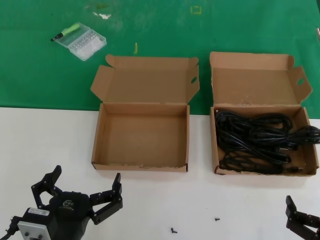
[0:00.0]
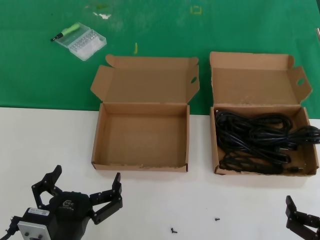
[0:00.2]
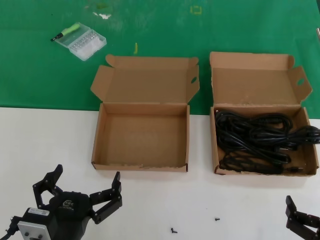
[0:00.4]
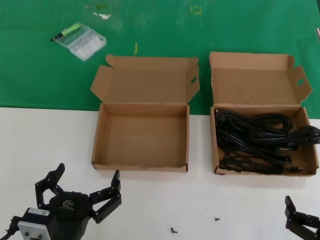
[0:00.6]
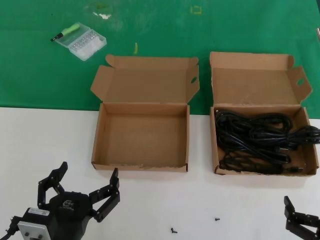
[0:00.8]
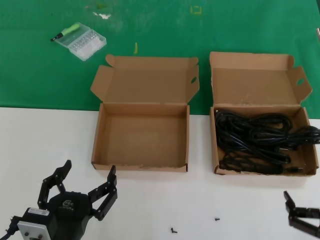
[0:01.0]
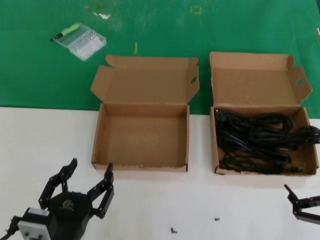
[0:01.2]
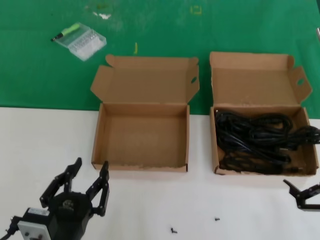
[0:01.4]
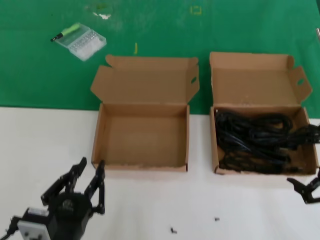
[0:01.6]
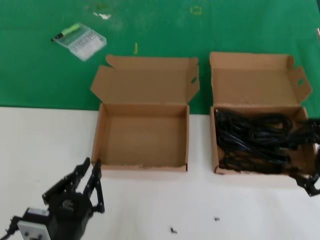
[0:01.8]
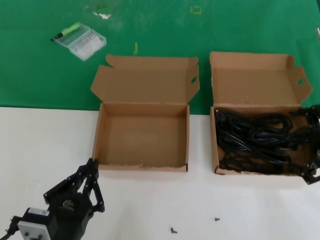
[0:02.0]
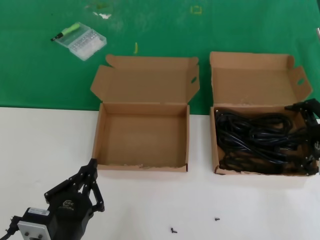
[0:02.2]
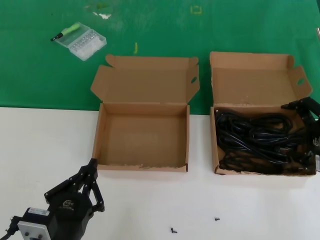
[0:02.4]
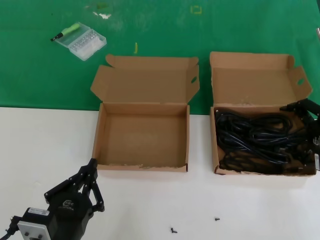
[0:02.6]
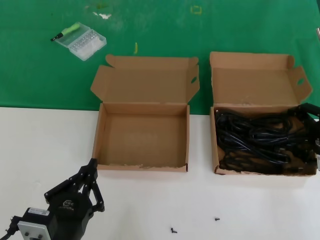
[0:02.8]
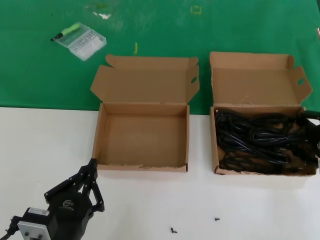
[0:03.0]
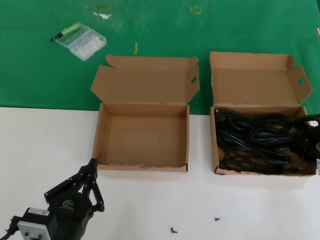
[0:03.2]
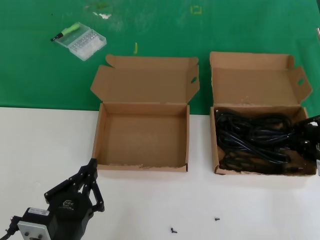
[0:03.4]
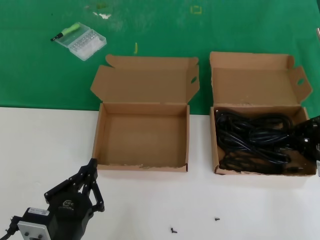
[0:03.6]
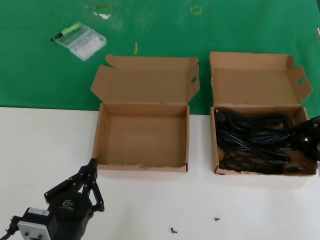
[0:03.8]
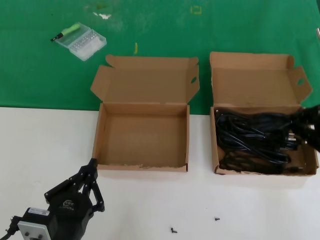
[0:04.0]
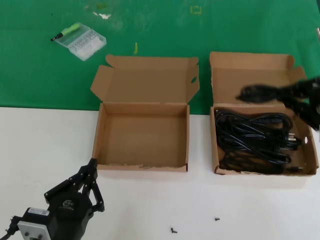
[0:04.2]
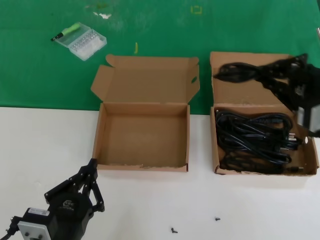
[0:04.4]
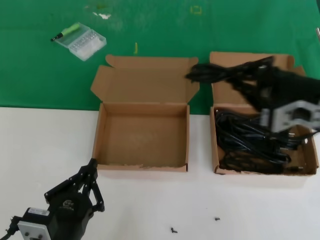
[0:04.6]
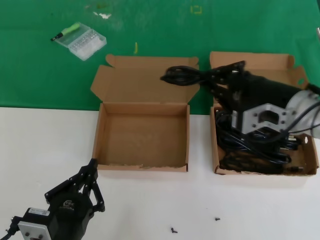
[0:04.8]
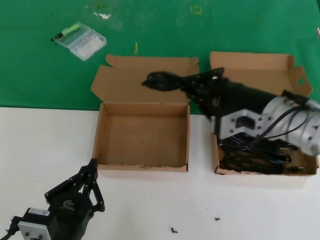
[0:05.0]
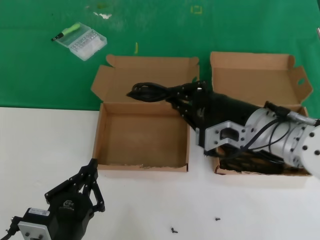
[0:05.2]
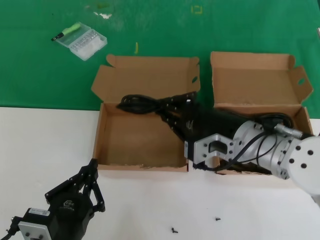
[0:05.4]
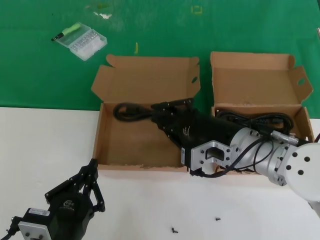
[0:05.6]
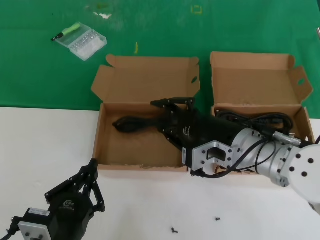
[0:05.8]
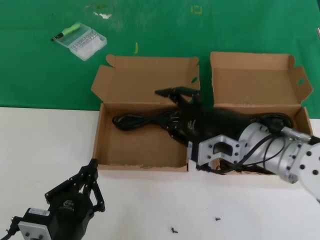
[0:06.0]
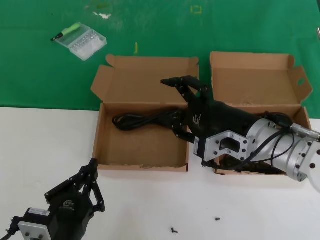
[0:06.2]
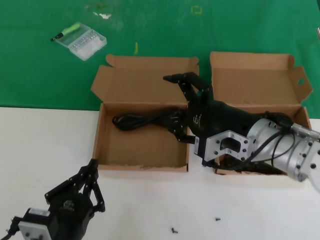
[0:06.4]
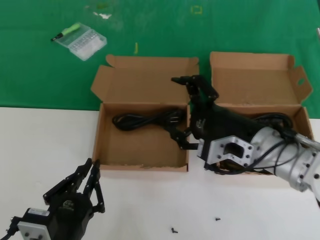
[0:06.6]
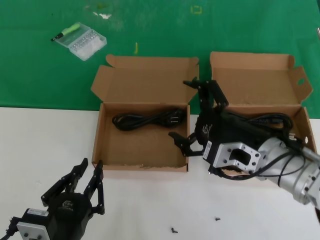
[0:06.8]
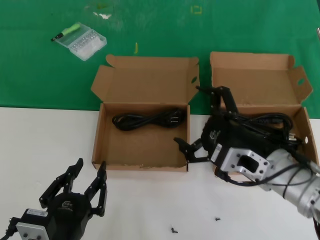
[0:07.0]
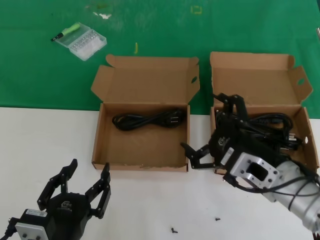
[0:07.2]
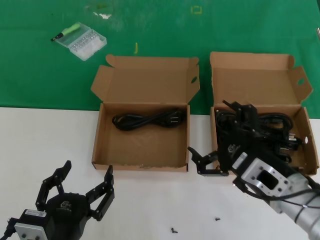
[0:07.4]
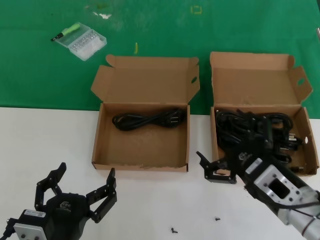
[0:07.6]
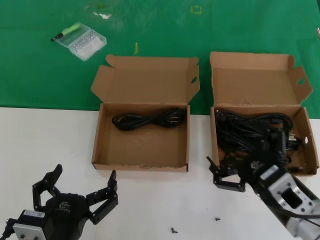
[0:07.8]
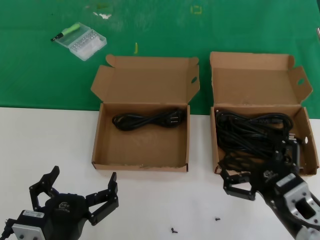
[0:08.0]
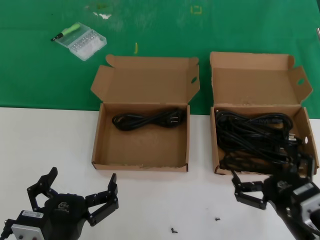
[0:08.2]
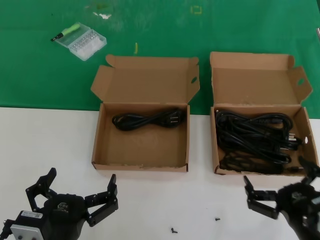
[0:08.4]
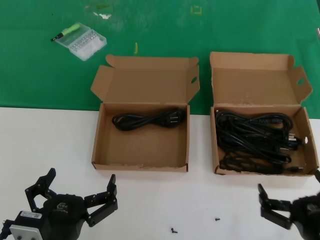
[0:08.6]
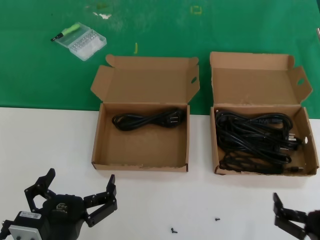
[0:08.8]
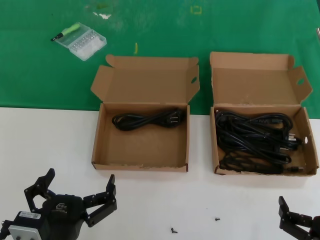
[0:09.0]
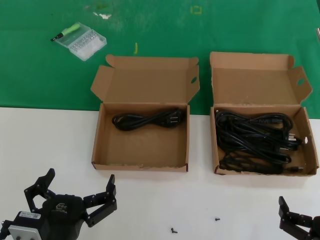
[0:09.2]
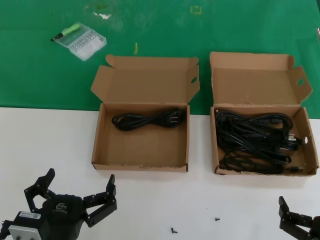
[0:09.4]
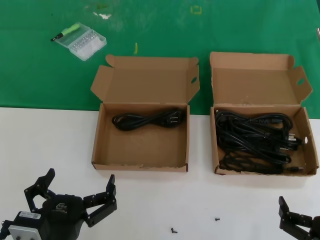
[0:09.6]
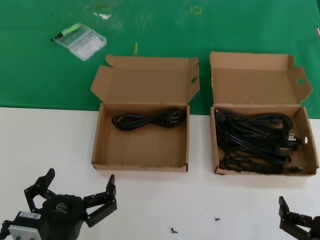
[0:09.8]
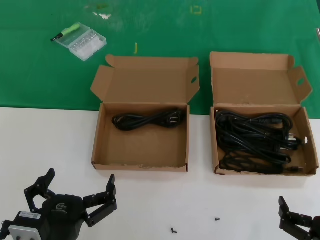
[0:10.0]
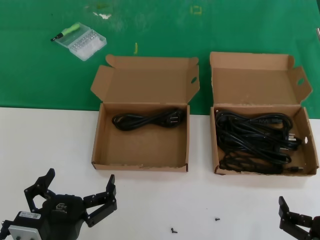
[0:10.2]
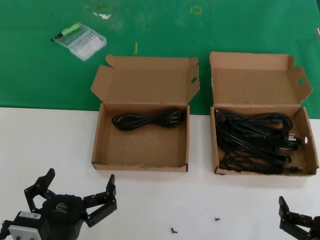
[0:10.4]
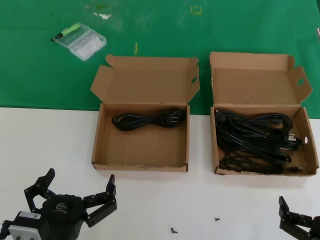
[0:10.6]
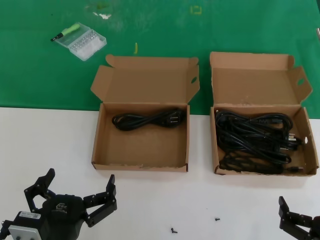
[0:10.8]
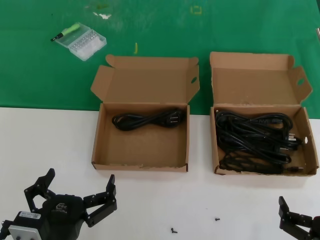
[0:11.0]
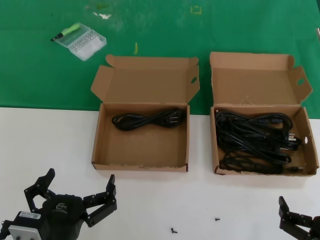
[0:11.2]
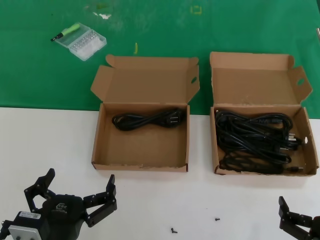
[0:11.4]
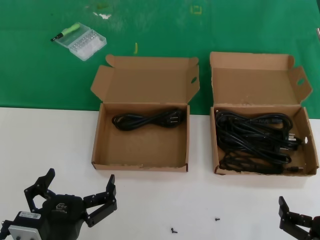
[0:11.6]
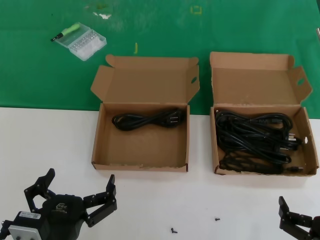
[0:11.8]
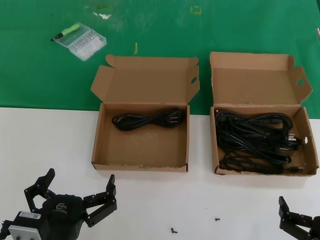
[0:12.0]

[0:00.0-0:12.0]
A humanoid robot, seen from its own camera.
Task of the whole recording: take the parts from the box containing them and put them into an empty box.
Step, 0:00.0 to 0:03.4: Grasp the data cable.
Step, 0:03.6 to 0:05.8: Place the data cable in the another box.
0:00.0 to 0:01.6: The right hand goes some 15 cm upward, forward and to the right.
0:01.6 to 0:03.0: The right hand moves forward and upward, roughly 10 cm.
0:03.0 to 0:04.4: The right hand heads upward and to the left, covering approximately 10 cm.
0:04.4 to 0:06.0: The right hand moves to the left and downward, some 20 cm.
0:06.0 to 0:07.6: The right hand shifts about 15 cm downward, backward and to the right.
0:07.6 to 0:09.0: The right hand is displaced backward, downward and to the right by some 15 cm.
0:09.0 to 0:12.0: Both hands stay put.

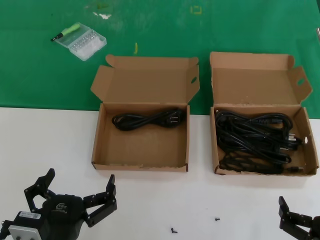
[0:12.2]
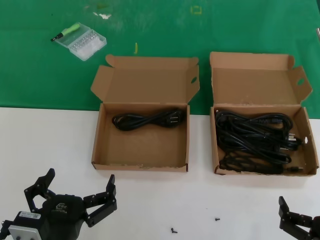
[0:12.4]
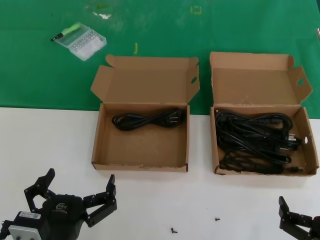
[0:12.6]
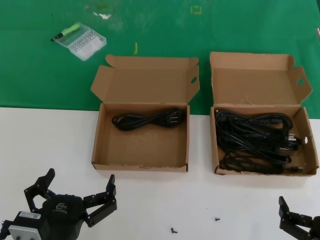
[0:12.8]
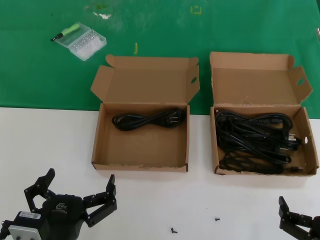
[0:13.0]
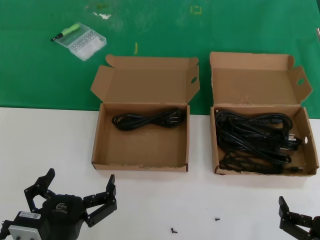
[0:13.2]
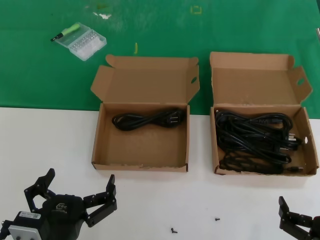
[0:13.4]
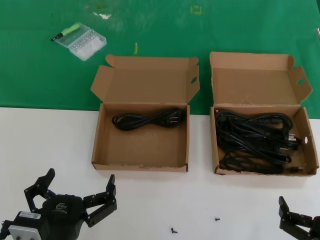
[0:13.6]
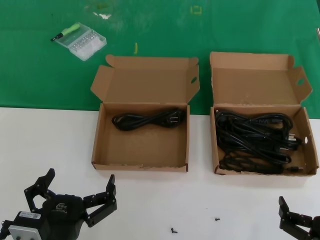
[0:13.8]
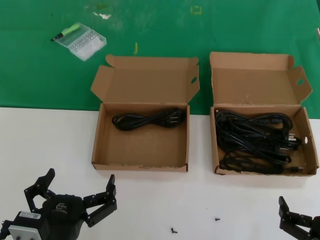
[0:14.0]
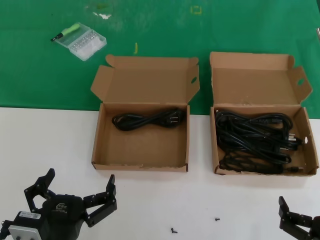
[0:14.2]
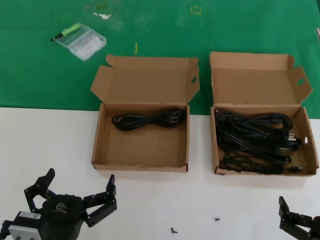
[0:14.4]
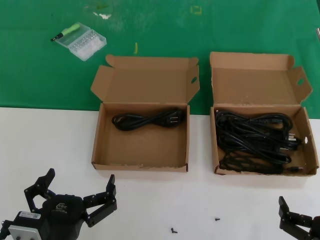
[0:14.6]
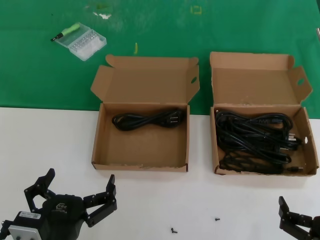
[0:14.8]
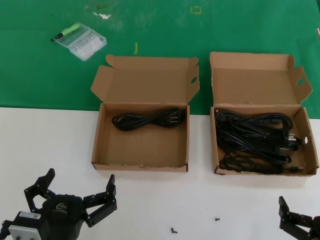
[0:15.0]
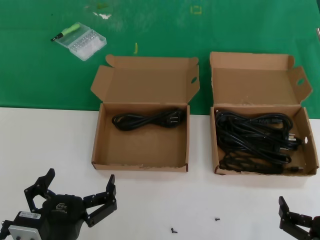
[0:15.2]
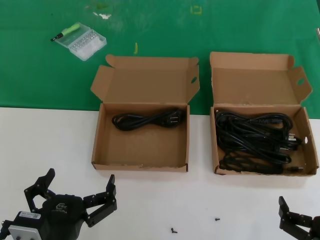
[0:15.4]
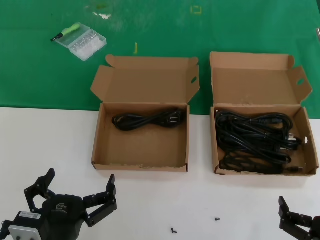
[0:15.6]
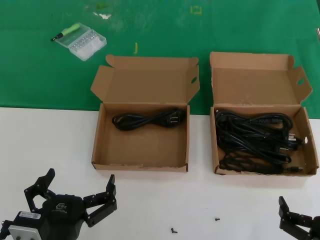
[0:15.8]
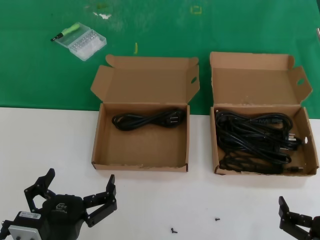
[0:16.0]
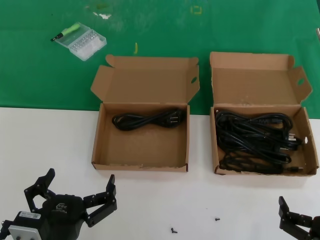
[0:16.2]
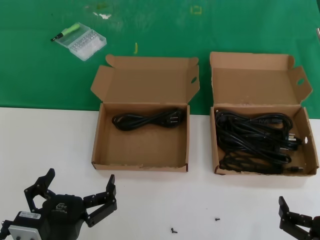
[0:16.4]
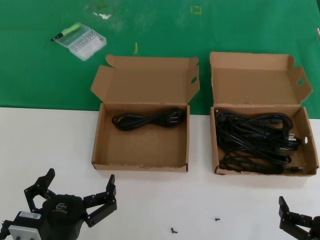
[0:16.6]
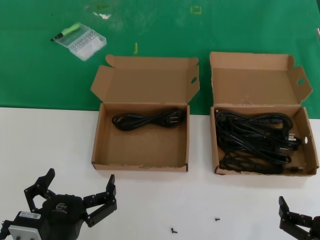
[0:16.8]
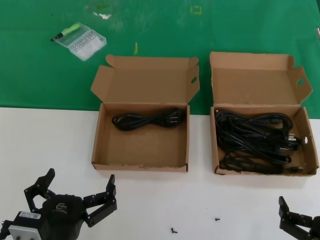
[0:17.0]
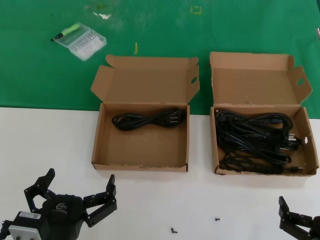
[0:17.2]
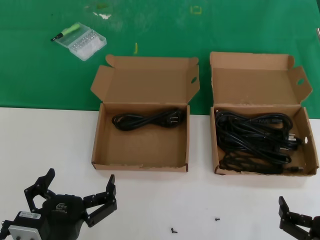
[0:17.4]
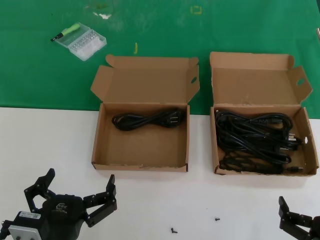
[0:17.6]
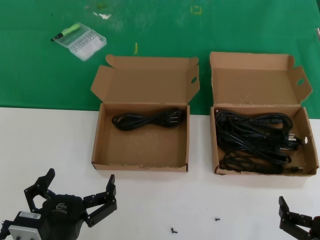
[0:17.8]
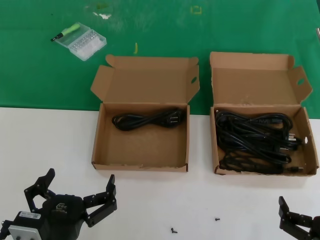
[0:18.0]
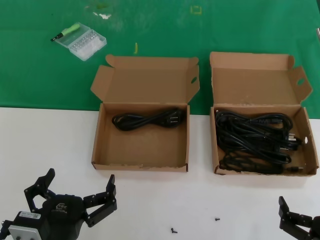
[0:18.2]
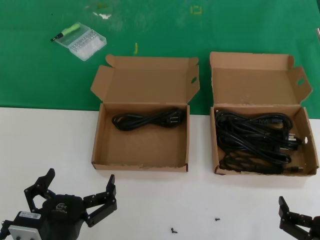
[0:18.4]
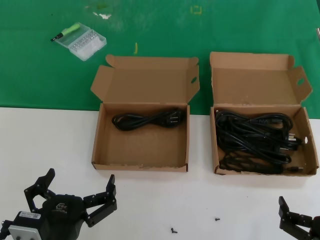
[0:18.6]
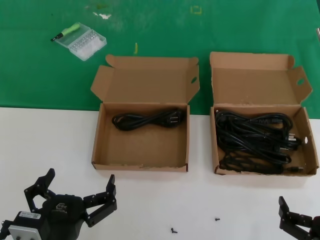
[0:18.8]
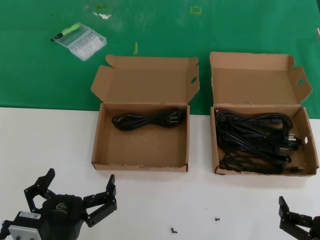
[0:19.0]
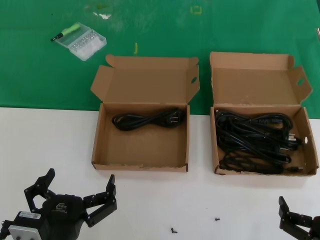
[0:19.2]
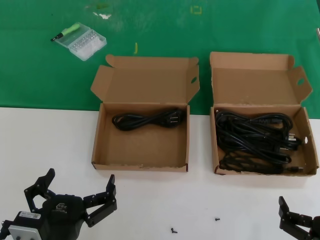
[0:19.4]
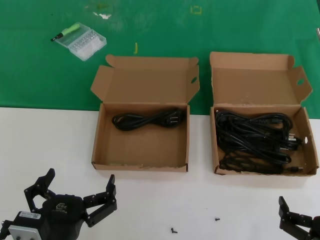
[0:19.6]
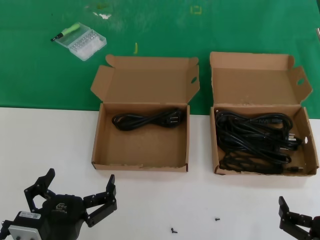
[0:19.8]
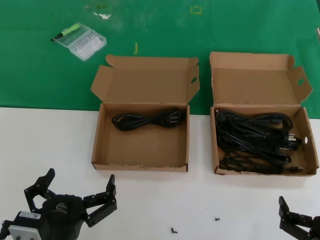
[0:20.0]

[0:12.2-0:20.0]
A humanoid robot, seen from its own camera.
Task of the whole recording: take the parts from the box containing them and put them into an empty box.
0:12.2 to 0:20.0: Both hands stay about where they are.

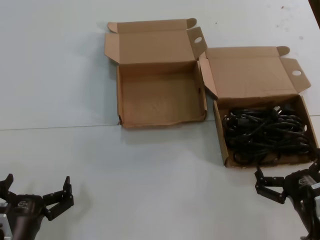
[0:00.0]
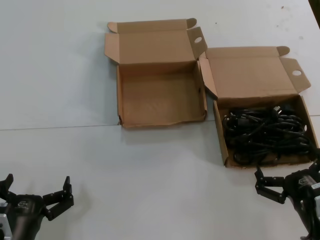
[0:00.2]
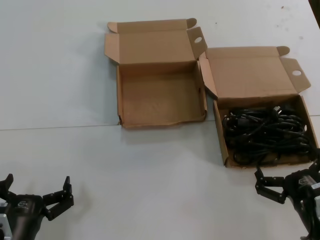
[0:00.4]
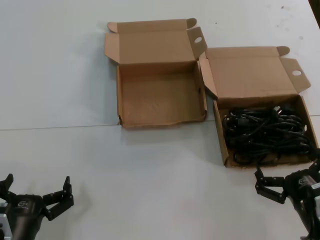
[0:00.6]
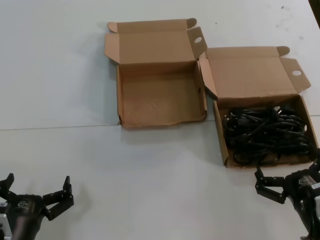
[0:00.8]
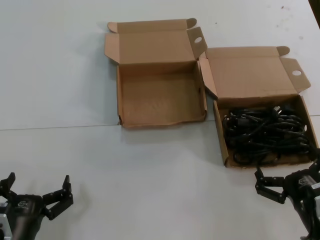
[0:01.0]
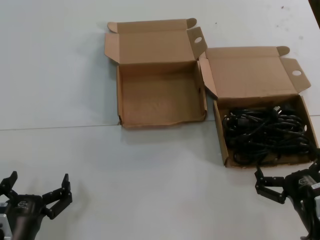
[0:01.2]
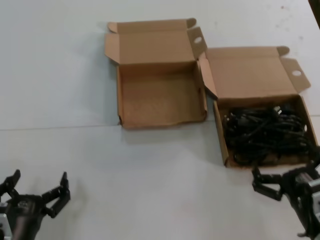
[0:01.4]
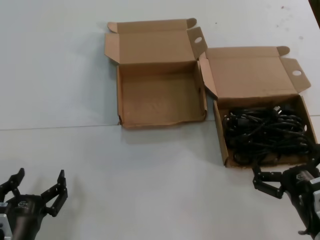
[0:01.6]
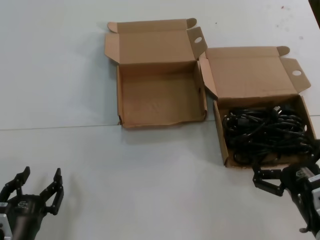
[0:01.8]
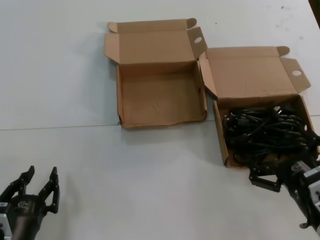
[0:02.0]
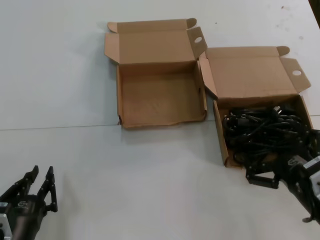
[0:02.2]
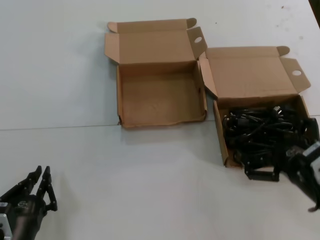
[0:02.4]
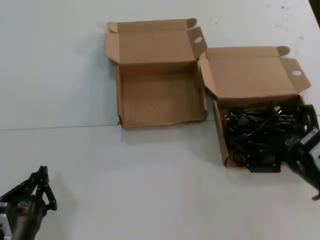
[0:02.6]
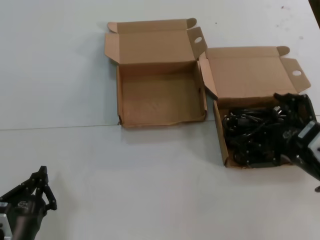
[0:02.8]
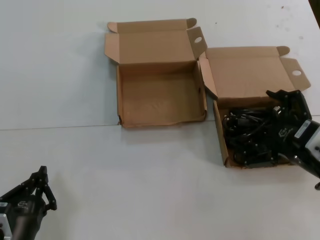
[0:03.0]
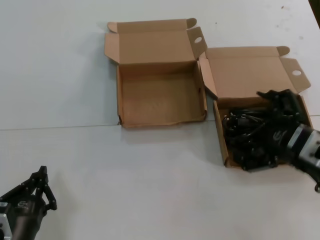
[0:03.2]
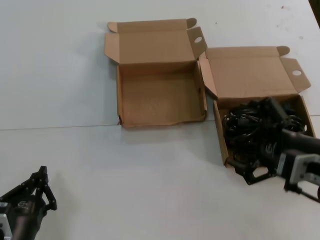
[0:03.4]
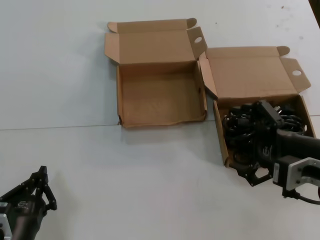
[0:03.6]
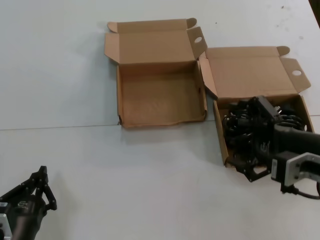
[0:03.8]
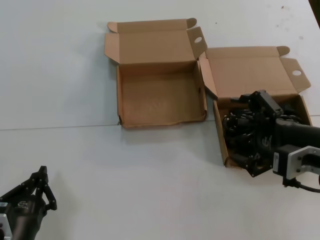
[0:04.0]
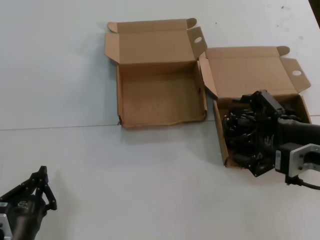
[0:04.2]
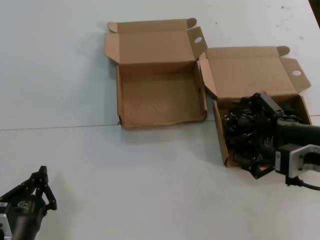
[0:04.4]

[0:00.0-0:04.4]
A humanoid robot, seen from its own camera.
Task of the whole recording: take the parts from the box containing them and put them into an empty box.
0:00.0 to 0:01.4: The two hands keep their place.
0:01.4 to 0:03.0: The right hand is displaced upward by some 15 cm.
